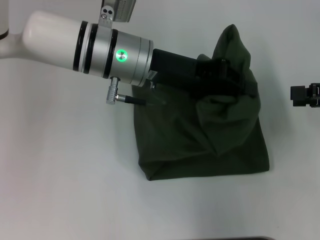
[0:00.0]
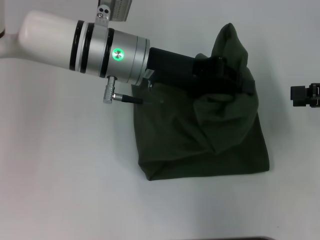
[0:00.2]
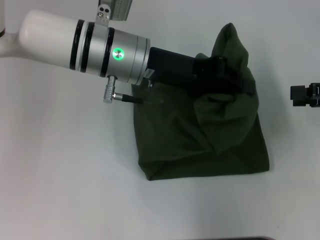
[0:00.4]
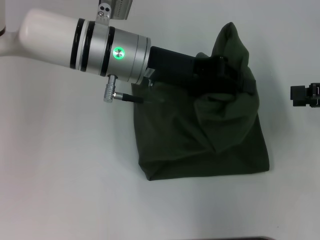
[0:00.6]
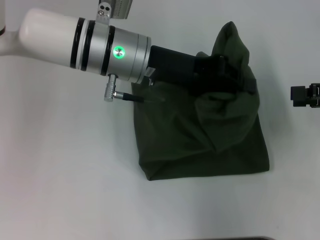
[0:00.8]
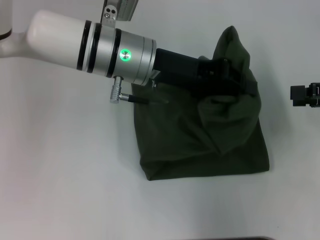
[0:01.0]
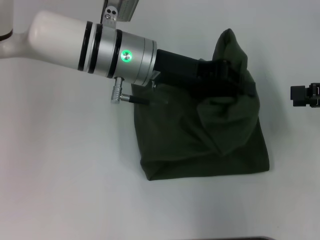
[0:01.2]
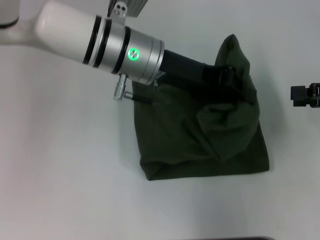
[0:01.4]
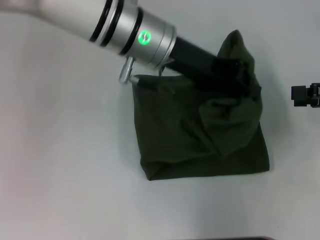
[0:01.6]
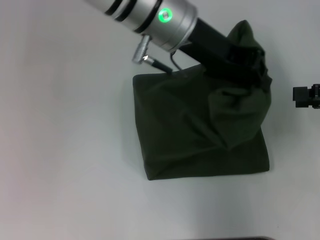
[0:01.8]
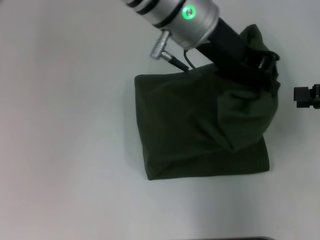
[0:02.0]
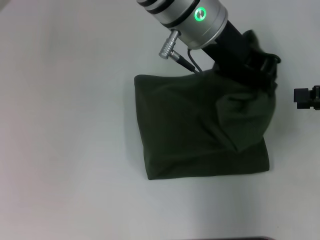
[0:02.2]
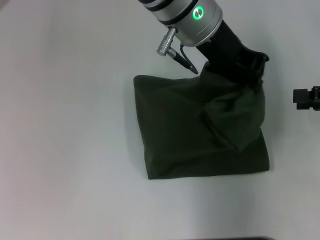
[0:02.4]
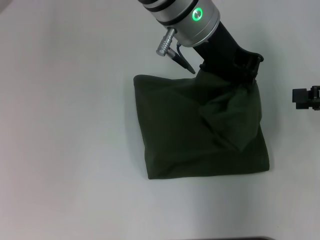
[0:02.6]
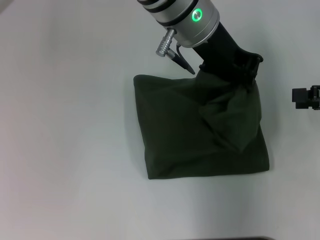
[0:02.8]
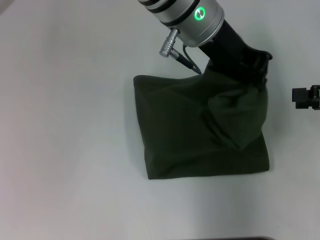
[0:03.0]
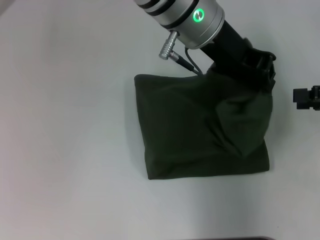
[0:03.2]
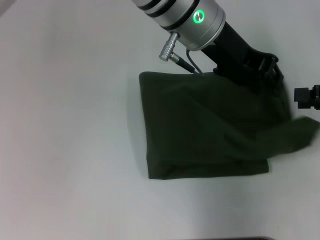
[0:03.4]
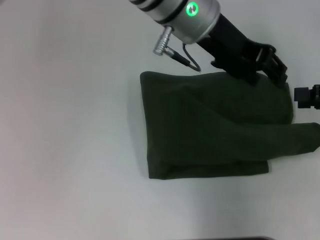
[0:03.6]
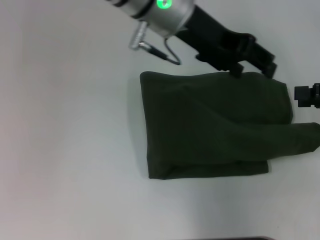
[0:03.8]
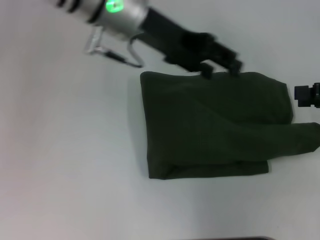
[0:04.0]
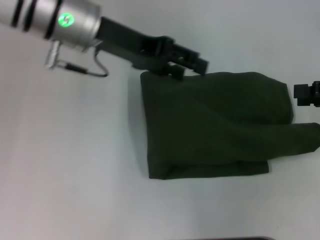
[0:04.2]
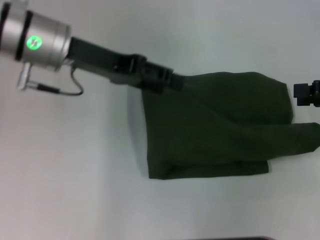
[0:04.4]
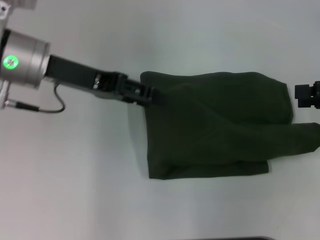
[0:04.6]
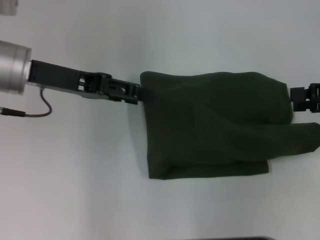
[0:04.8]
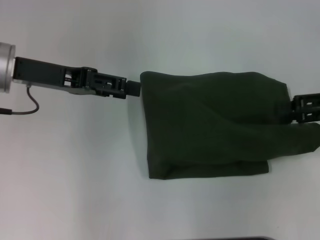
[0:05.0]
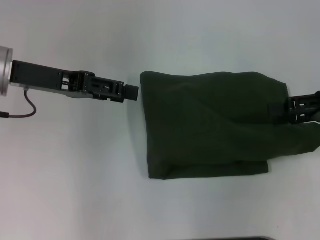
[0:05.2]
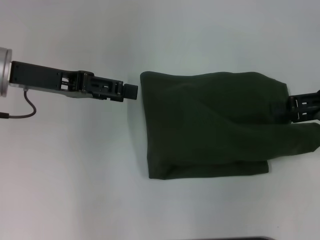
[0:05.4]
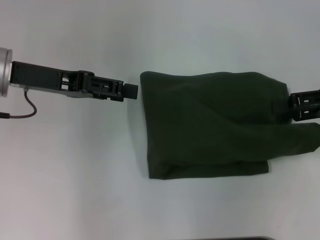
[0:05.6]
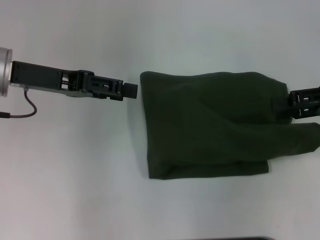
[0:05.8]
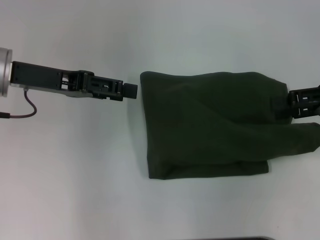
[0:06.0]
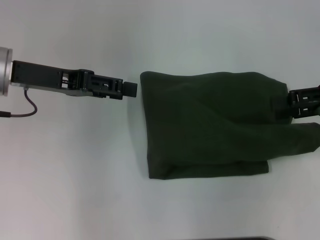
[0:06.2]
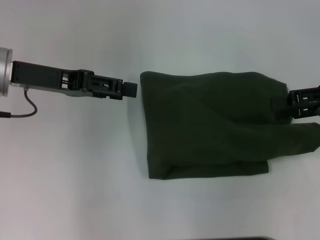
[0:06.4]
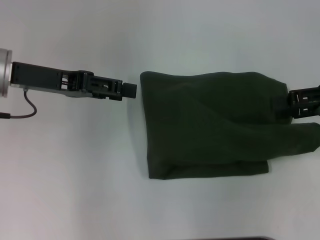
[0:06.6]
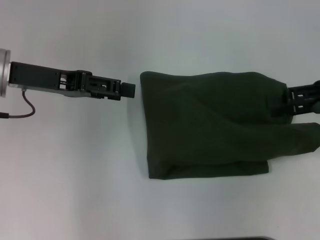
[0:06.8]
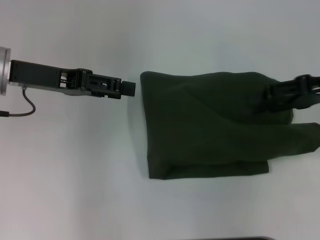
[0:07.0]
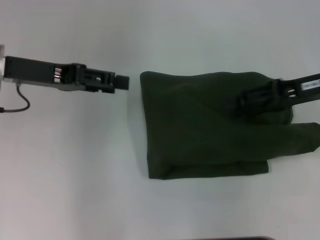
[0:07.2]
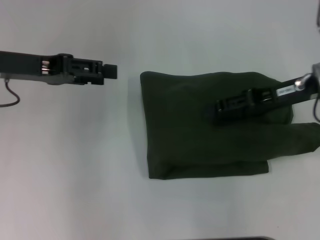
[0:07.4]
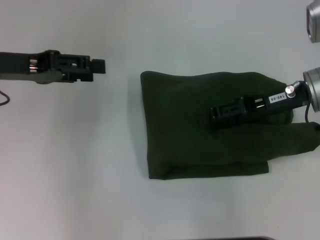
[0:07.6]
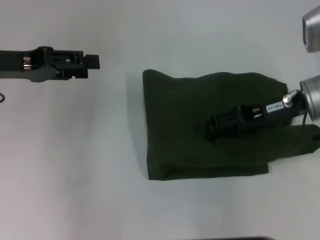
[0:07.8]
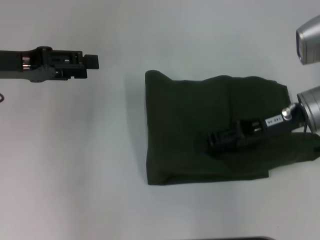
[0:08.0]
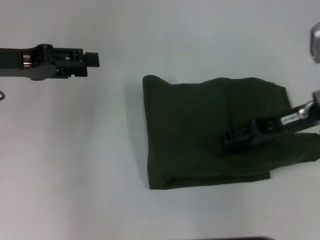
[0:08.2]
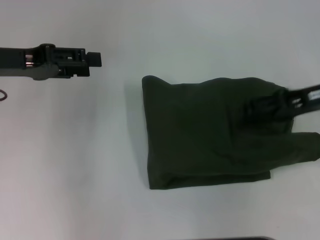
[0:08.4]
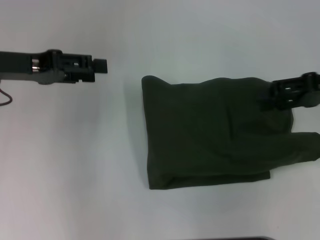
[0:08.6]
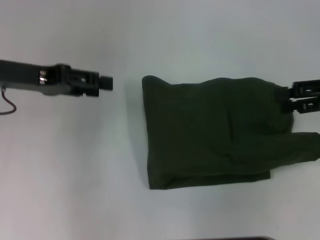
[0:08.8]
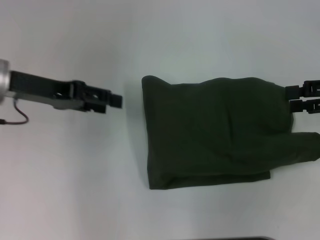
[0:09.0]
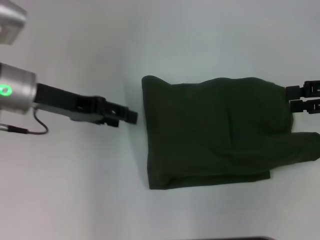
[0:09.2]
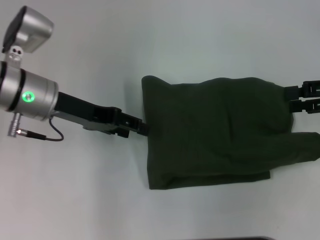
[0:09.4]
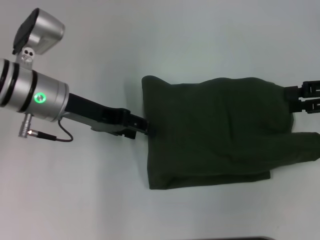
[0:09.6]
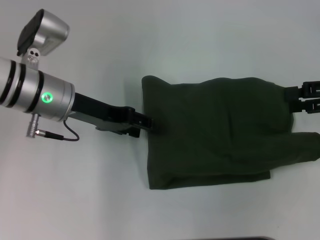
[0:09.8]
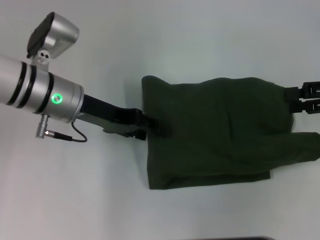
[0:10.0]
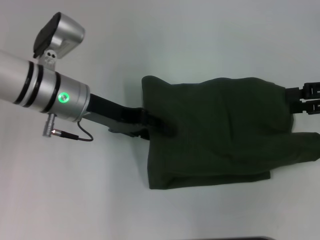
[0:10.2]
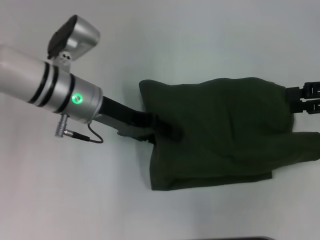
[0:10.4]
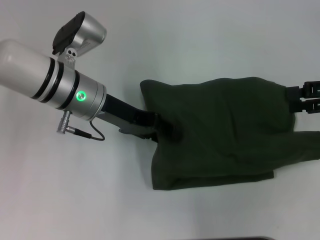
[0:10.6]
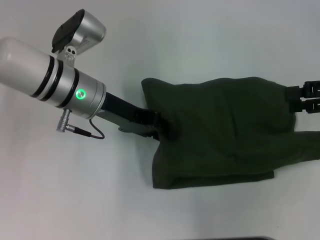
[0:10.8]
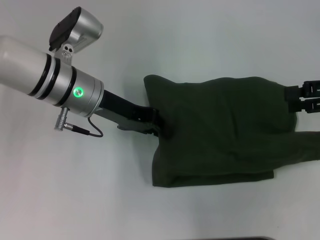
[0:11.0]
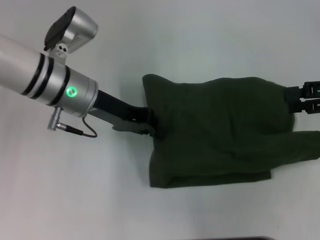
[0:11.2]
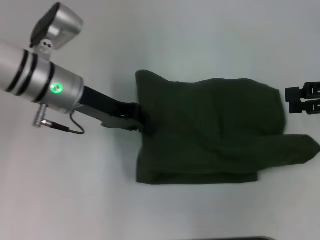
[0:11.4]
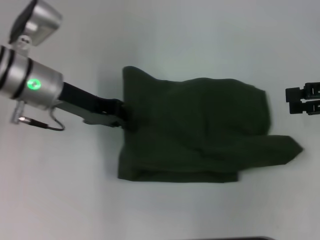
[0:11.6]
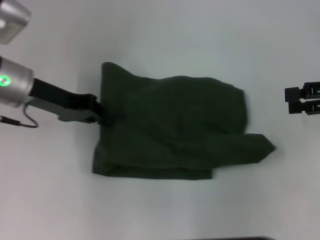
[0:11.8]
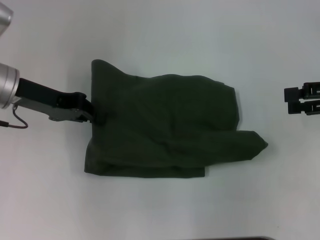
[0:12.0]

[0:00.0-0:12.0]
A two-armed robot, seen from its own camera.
Step, 0:00.0 to 0:03.6: Fold the clothes with your left hand.
0:00.0 to 0:01.6: The grippers move only a little.
0:01.6 to 0:03.0: The left gripper moves to the right, roughly 5 cm.
0:03.0 to 0:04.4: The left gripper shifts roughly 20 cm to the left, and opens up.
0:04.4 to 0:06.0: The left gripper travels to the left by about 5 cm.
0:06.0 to 0:07.6: The right gripper goes about 10 cm to the left.
0:07.6 to 0:09.0: The right gripper moves to the right, approximately 10 cm.
0:09.0 to 0:10.4: The left gripper goes some 10 cm to the right.
0:10.4 to 0:12.0: The left gripper travels to the left by some 10 cm, and closes.

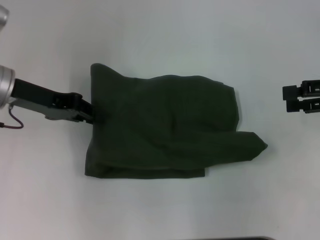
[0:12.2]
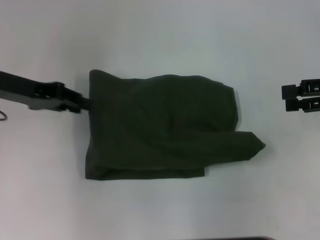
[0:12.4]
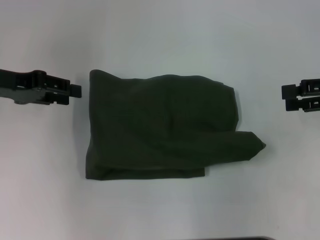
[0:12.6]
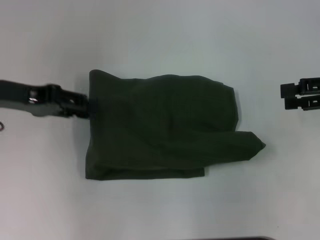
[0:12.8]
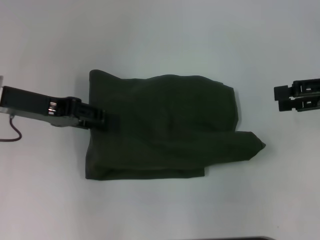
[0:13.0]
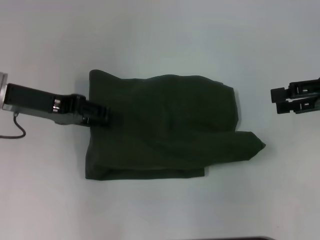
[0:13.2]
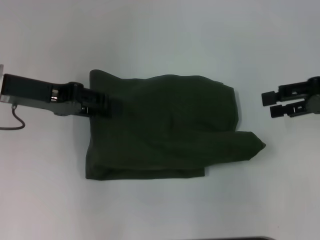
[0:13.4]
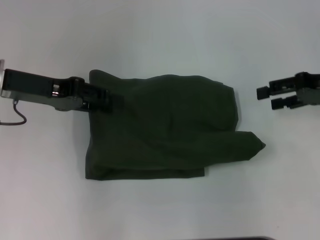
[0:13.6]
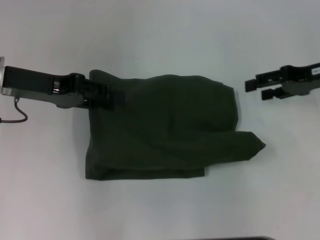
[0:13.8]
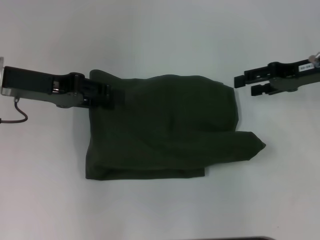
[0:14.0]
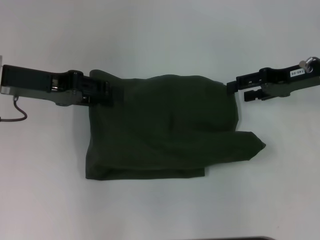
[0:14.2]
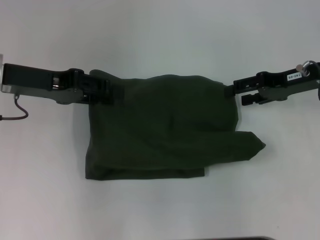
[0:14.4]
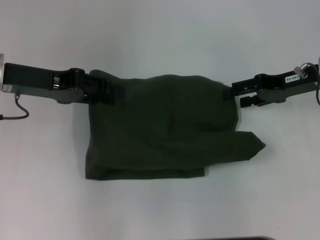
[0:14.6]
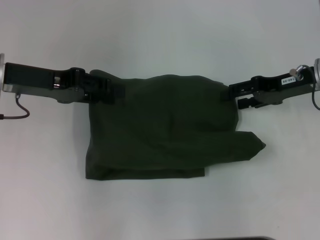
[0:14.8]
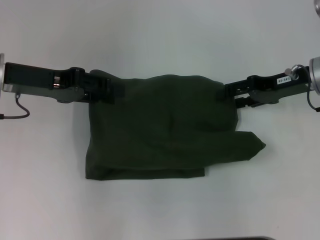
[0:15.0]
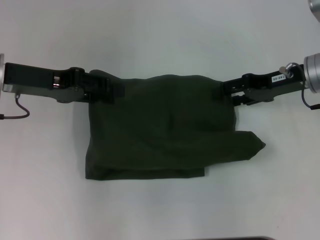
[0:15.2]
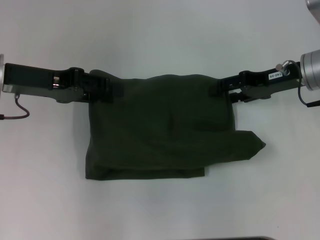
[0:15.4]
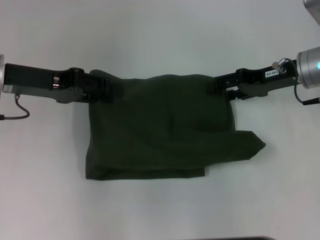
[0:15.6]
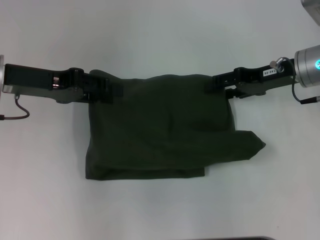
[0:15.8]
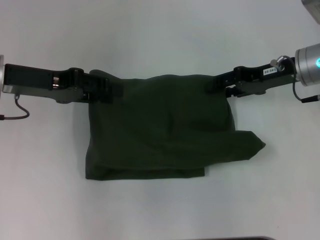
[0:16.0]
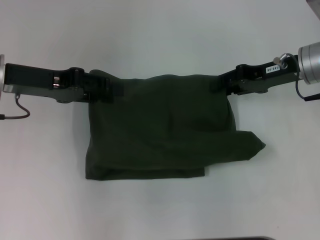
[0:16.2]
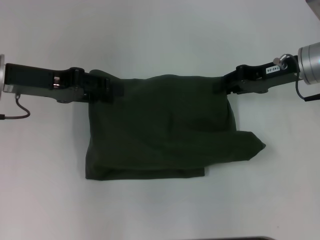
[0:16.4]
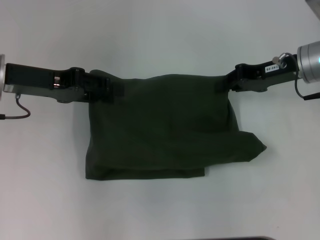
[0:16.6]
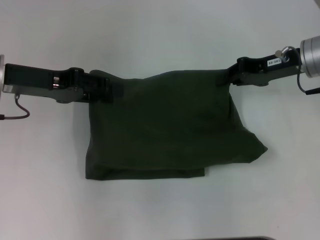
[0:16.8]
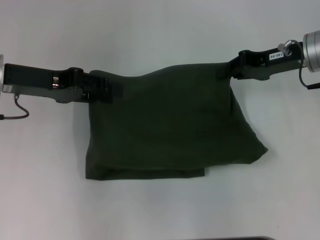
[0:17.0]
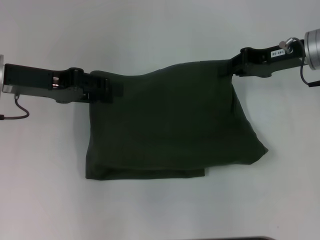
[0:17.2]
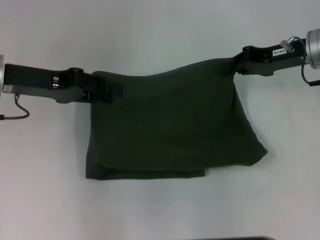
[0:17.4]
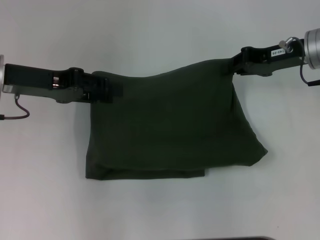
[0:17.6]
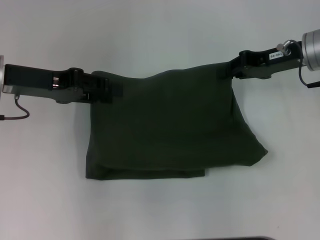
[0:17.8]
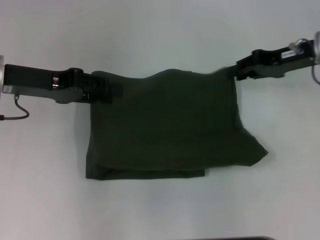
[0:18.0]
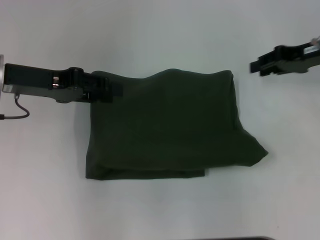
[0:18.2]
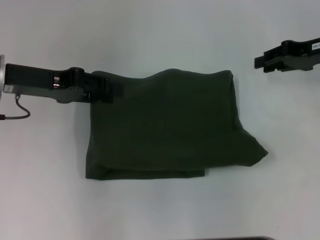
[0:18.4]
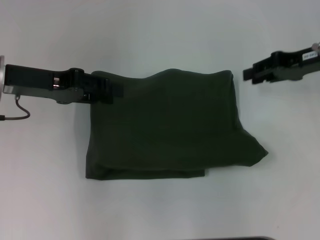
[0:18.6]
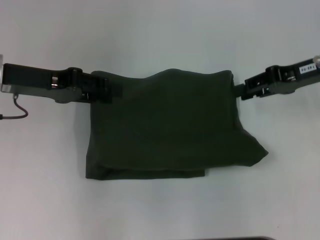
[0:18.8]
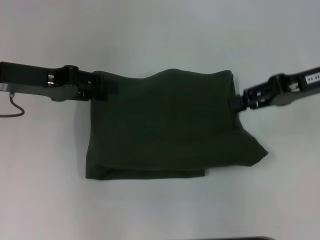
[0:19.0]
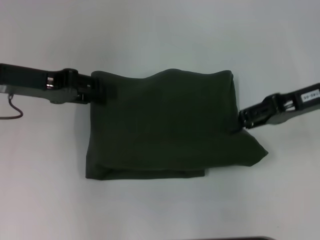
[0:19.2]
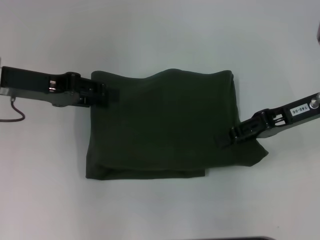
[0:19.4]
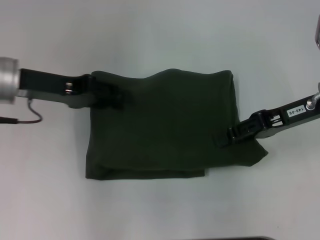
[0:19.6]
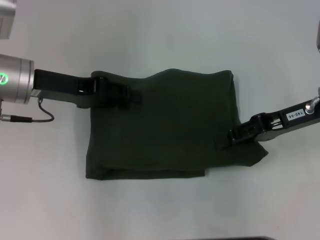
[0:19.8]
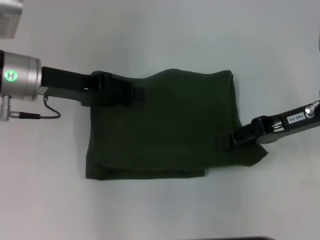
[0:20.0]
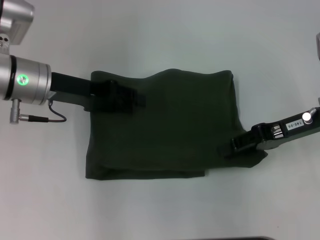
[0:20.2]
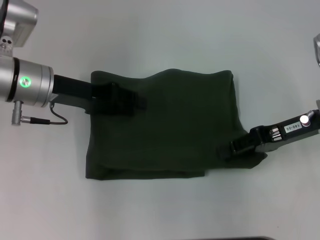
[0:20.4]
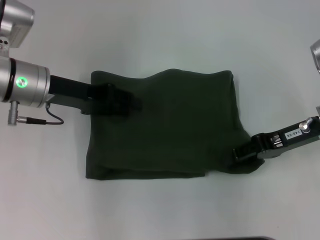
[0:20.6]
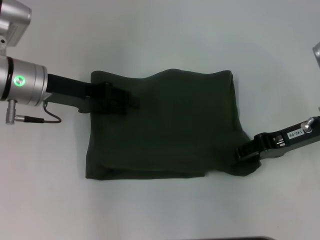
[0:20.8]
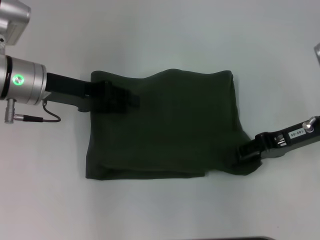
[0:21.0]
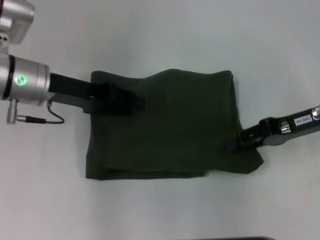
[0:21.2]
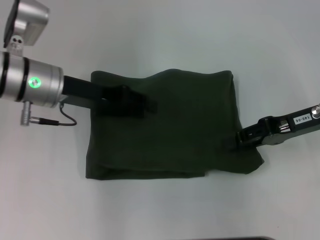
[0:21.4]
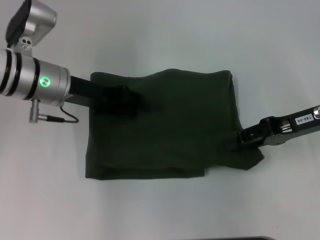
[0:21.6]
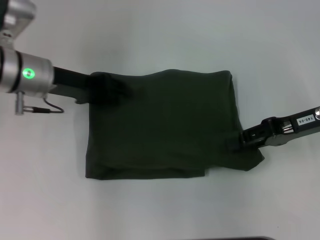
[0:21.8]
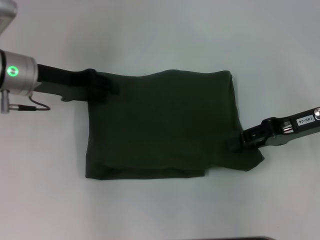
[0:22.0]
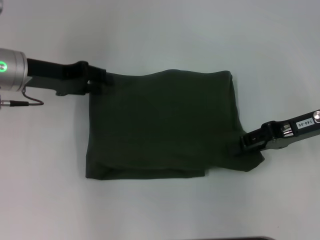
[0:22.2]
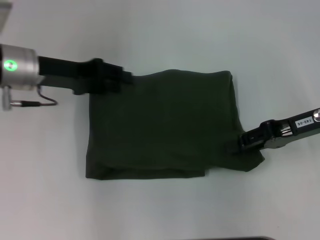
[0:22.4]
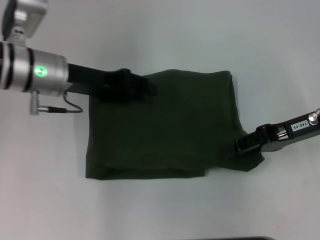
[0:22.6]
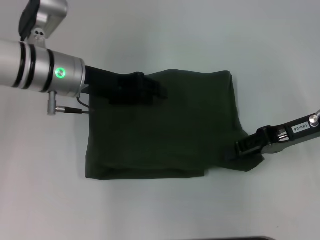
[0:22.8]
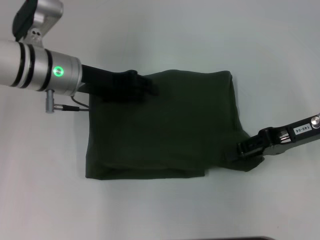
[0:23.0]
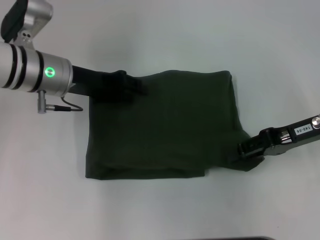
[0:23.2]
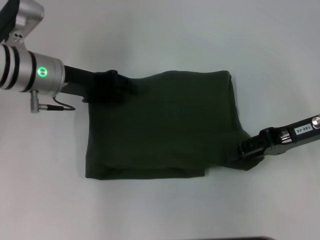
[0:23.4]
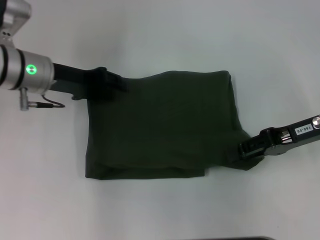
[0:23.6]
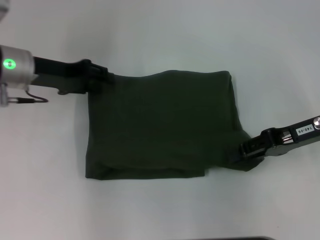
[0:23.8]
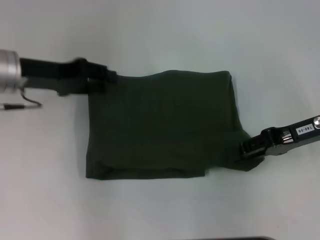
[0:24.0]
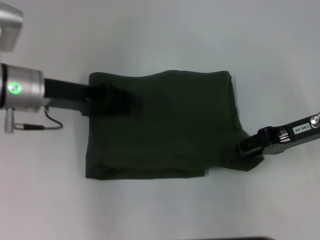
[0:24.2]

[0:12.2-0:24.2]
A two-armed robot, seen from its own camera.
0:12.2 to 0:13.8: The left gripper opens its fingers. The right gripper heads forward, covering approximately 5 cm.
0:13.8 to 0:15.2: The right gripper travels to the left by about 5 cm.
0:15.2 to 0:16.6: The right gripper closes.
0:16.6 to 0:18.2: The right gripper travels to the right by about 5 cm.
0:18.2 to 0:19.8: The right gripper heads backward, covering approximately 10 cm.
0:19.8 to 0:22.6: The grippers make only small movements.
0:22.6 to 0:24.2: The grippers stay close to where they were, moving slightly.
